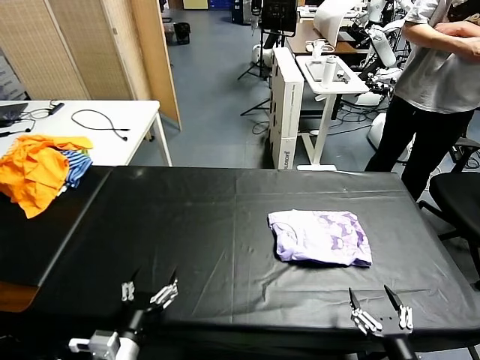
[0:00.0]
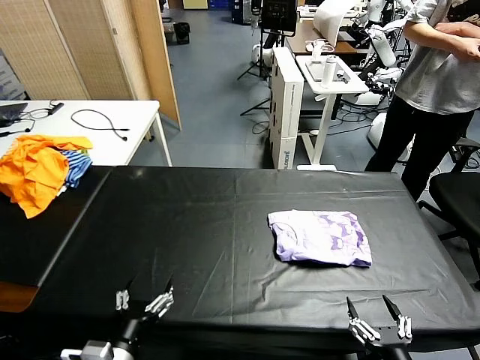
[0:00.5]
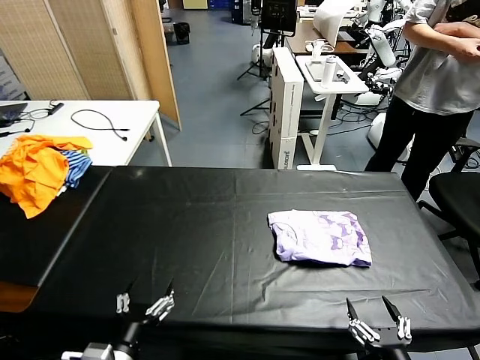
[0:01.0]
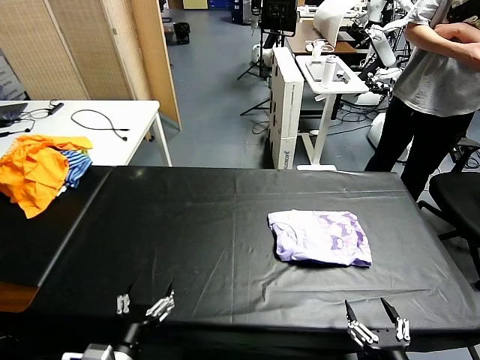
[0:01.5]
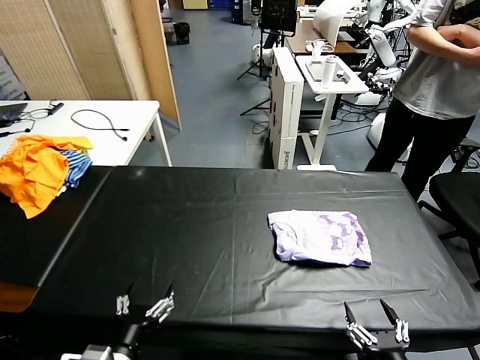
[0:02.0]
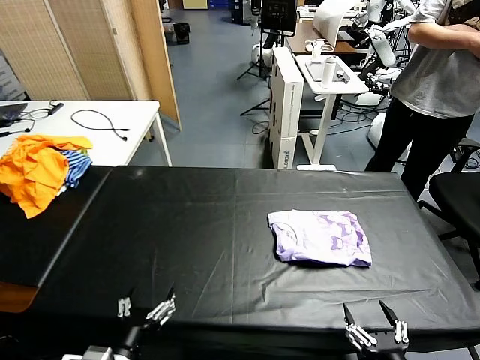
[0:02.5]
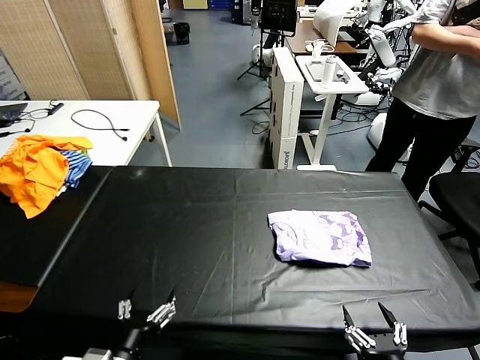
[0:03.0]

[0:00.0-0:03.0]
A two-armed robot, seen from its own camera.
Task of the whole recording: fold and organize the clothes.
0:00.0 to 0:01.5: The grippers make only small movements.
0:01.5 to 0:03.0: The two grippers keep their place.
